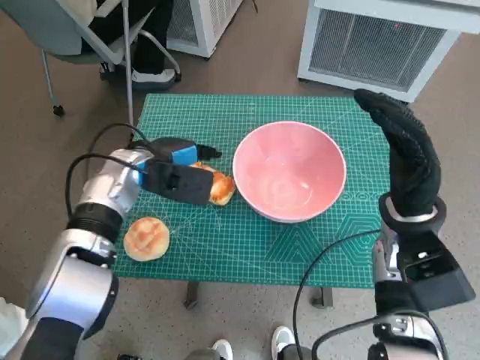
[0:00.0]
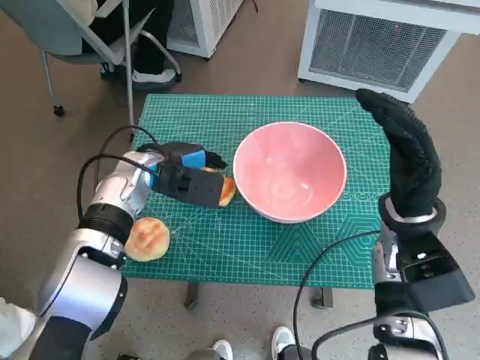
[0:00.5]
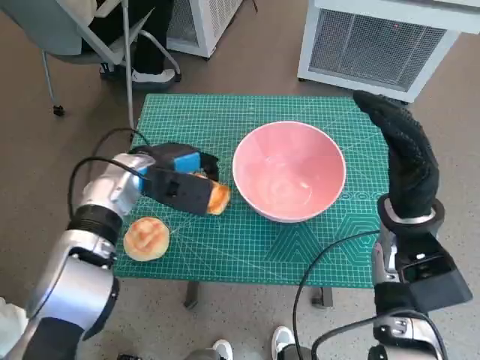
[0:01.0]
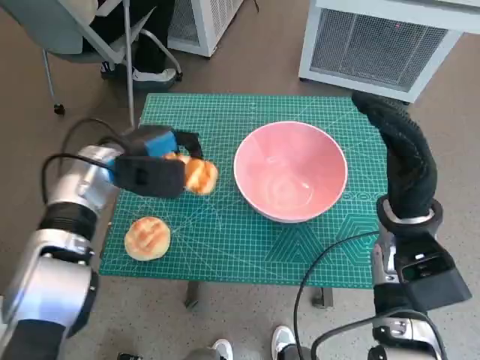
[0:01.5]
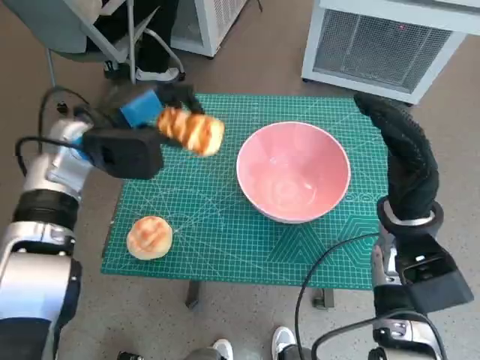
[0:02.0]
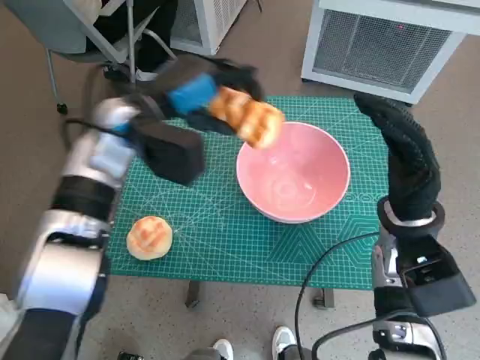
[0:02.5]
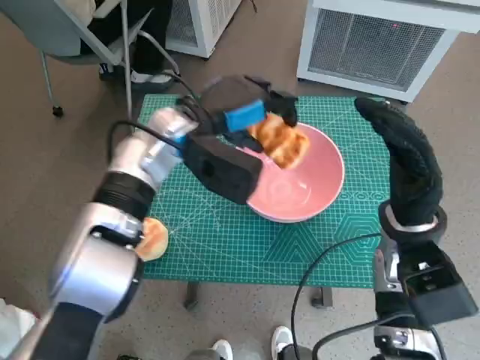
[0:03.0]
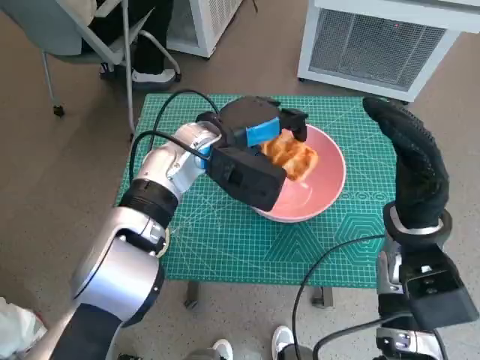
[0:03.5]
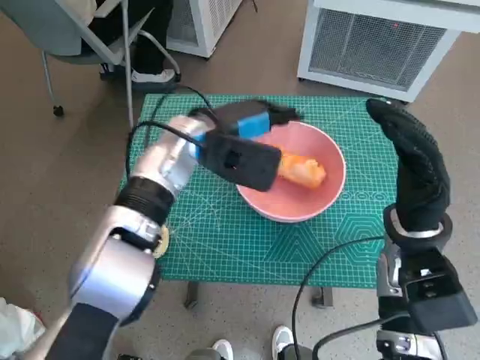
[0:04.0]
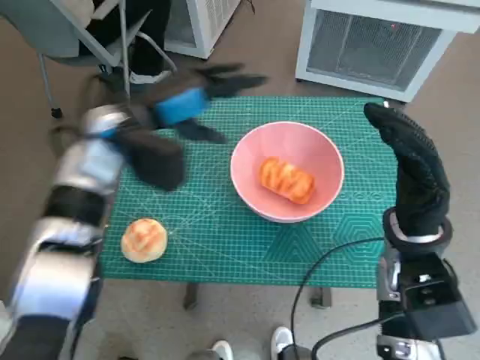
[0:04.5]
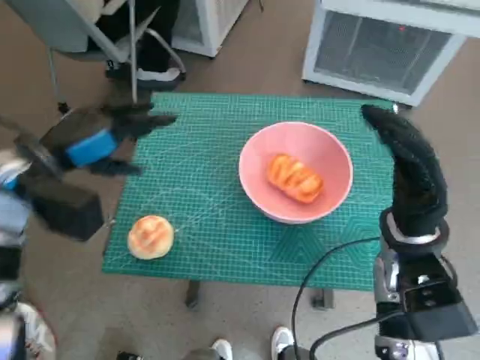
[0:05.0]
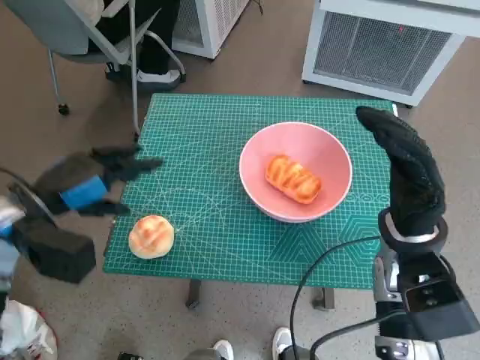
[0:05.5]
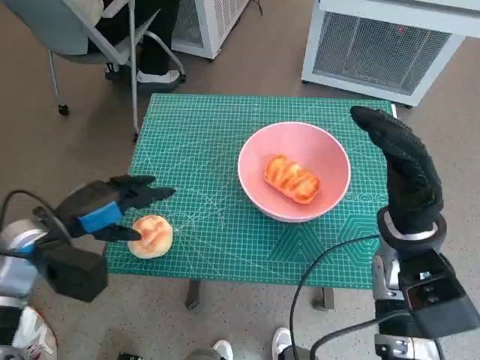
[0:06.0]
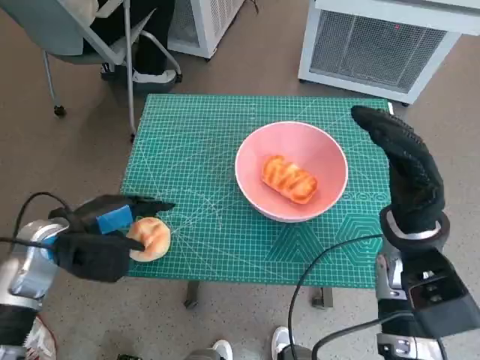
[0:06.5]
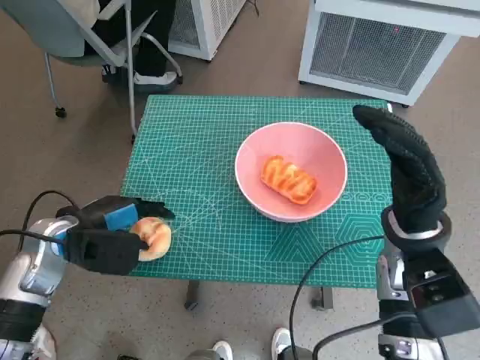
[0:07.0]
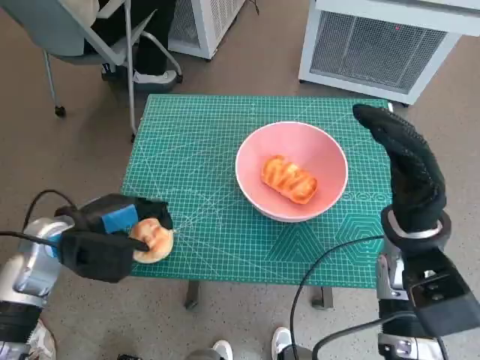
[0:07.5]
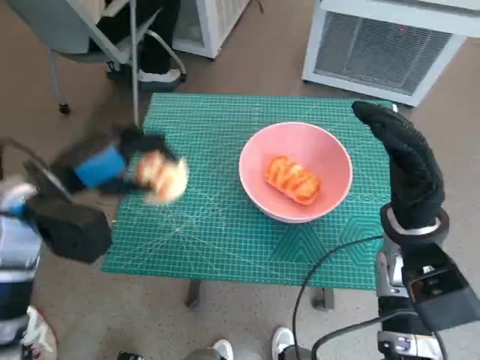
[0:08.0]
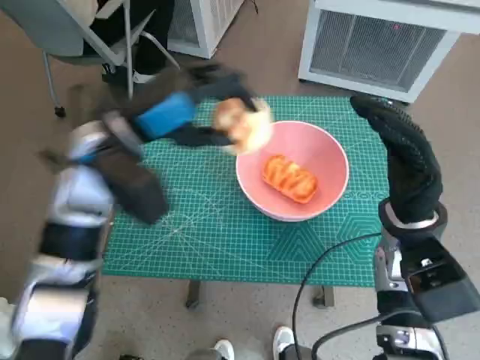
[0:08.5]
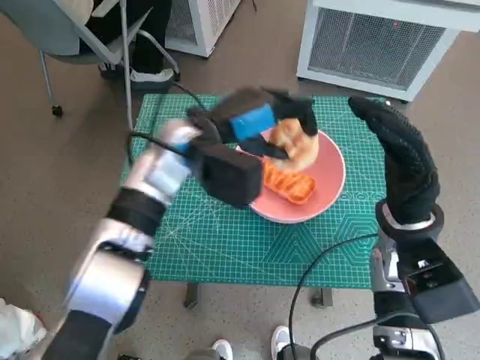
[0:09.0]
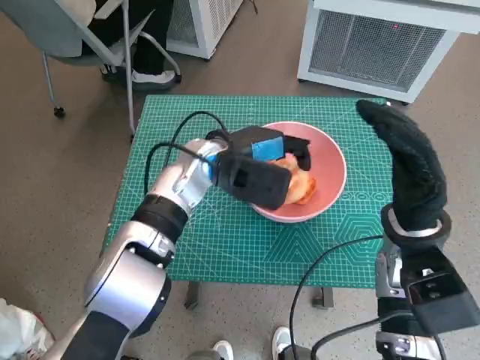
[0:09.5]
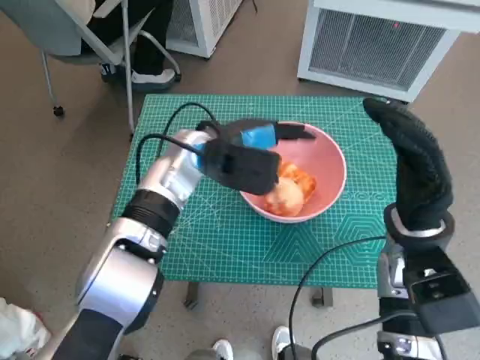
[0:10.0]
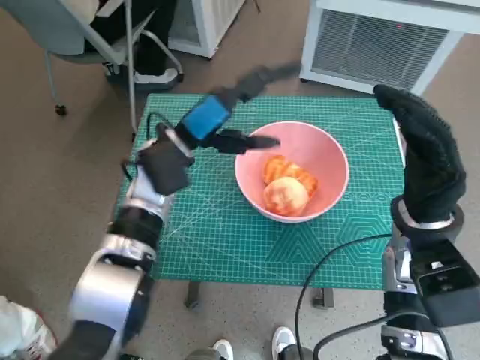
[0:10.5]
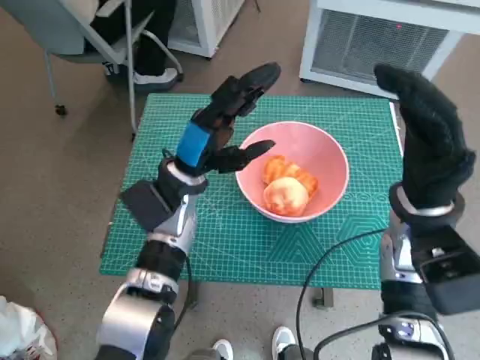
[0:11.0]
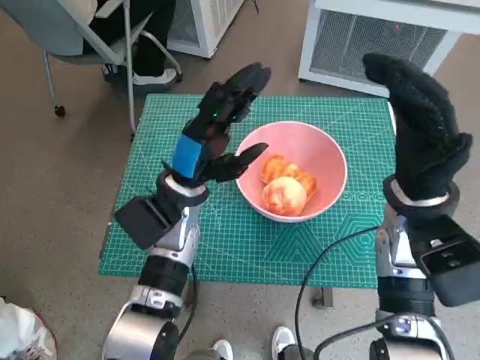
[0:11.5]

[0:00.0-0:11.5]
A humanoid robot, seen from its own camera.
Task of the whole recording: Push the bowl to the center of the table and put the bread into the bowl.
Step, 0:01.0 to 0:04.0: Place the long bread in pink bowl with left hand.
Step, 0:04.5 to 0:07.0: Grasp the round bread with left hand.
Step, 0:07.5 to 0:10.0: Place the round bread in pink bowl with left hand.
0:00.0 to 0:02.0: The left hand shifts roughly 5 cm upward.
0:02.0 to 0:04.0: The left hand is displaced to the right by roughly 15 cm.
0:04.0 to 0:06.0: The left hand heads to the left and backward, covering about 25 cm.
0:07.5 to 0:09.5: The left hand is displaced to the right and forward by about 20 cm.
0:09.5 to 0:11.5: The left hand changes place by about 5 cm.

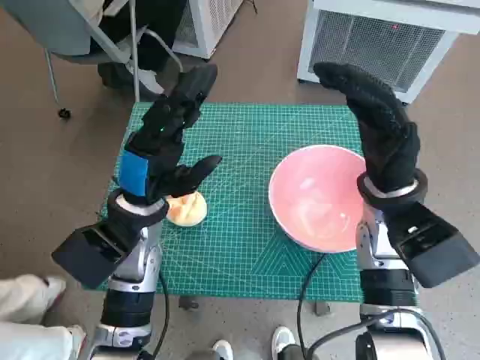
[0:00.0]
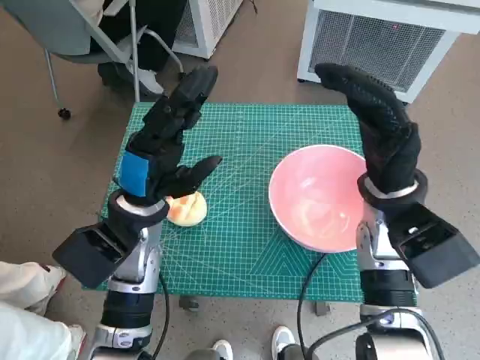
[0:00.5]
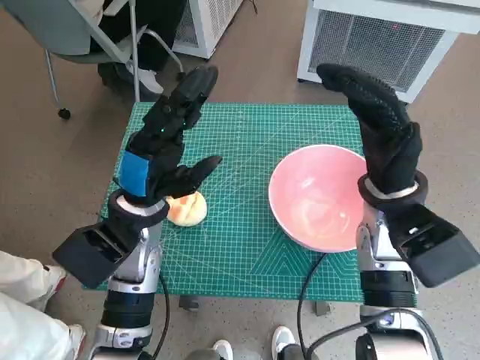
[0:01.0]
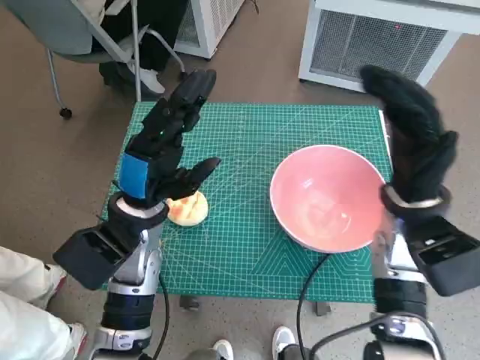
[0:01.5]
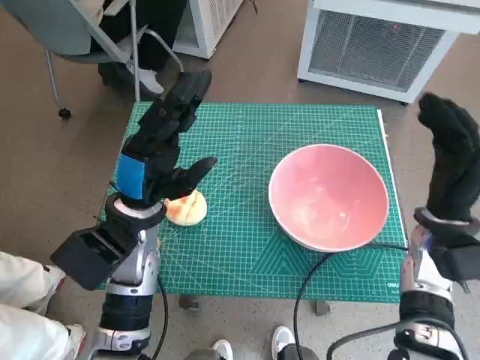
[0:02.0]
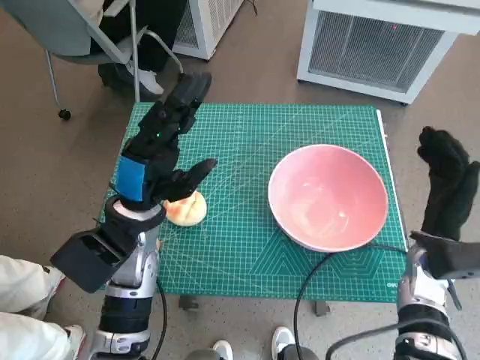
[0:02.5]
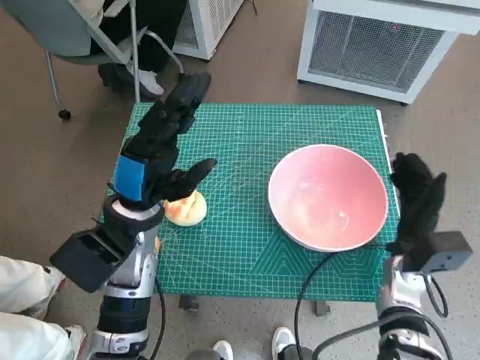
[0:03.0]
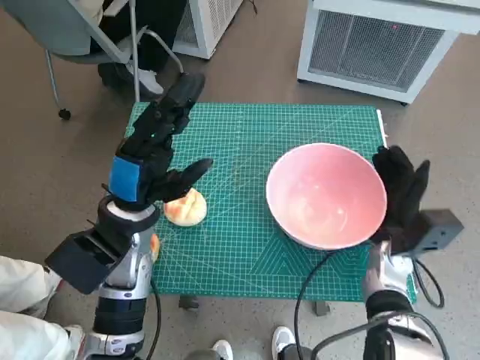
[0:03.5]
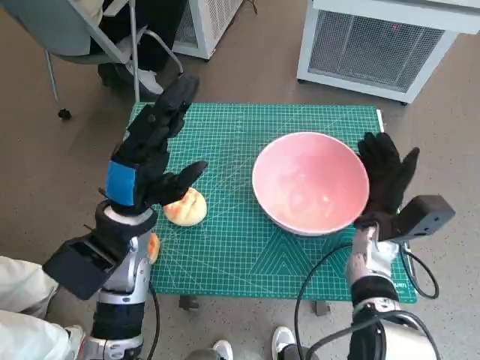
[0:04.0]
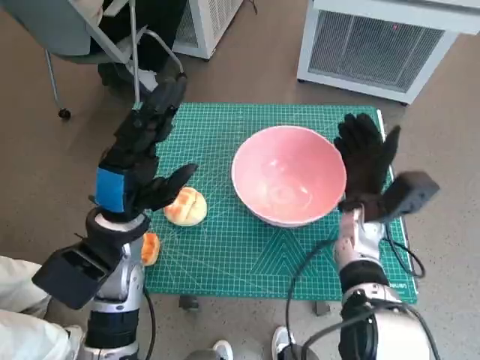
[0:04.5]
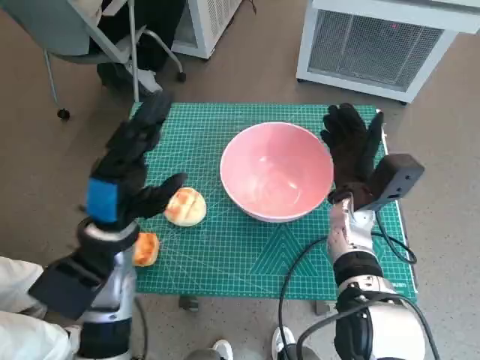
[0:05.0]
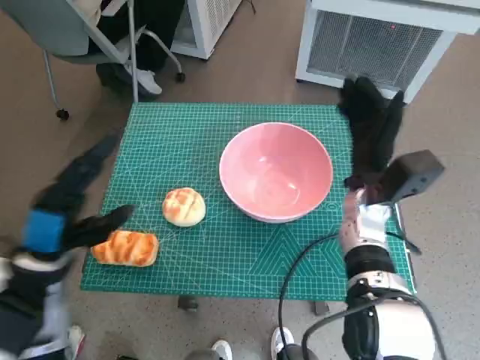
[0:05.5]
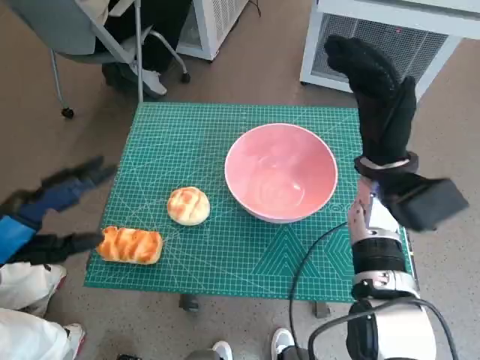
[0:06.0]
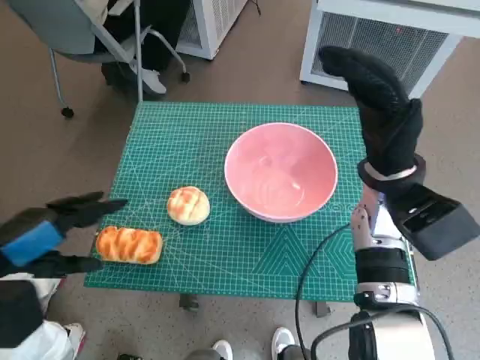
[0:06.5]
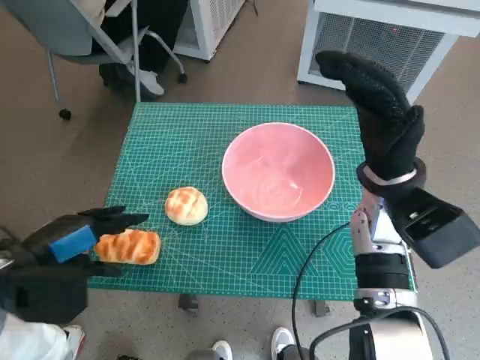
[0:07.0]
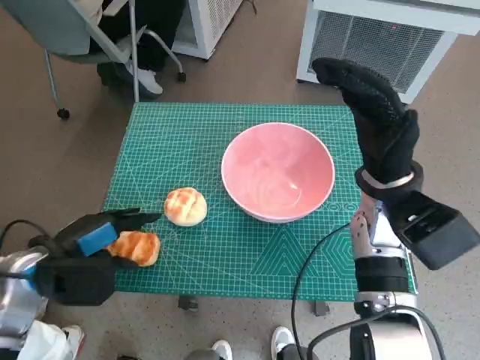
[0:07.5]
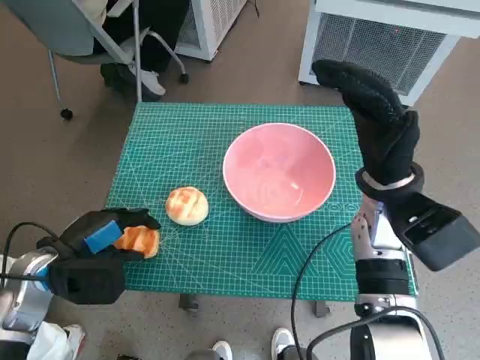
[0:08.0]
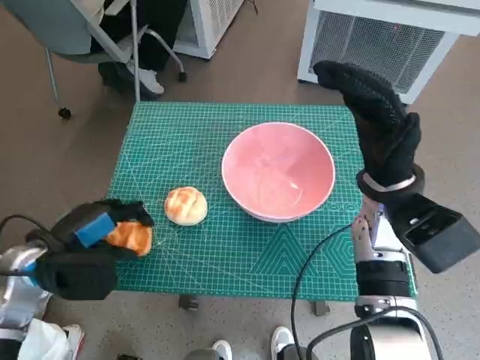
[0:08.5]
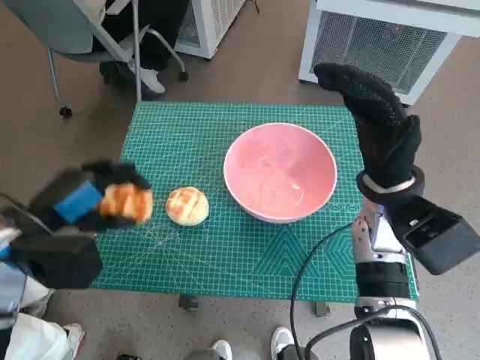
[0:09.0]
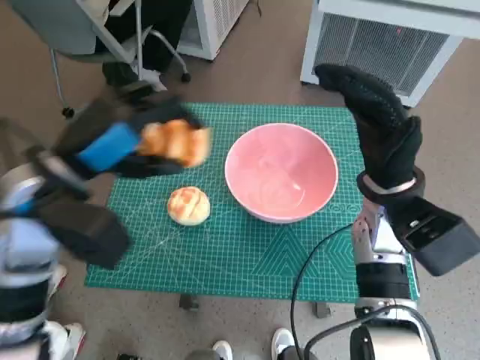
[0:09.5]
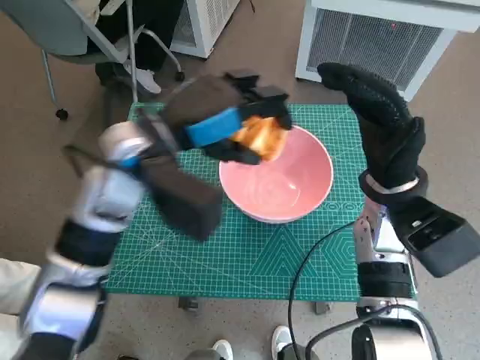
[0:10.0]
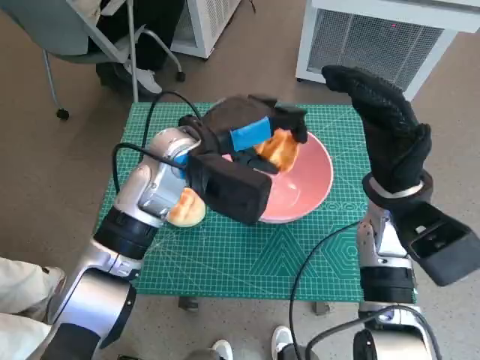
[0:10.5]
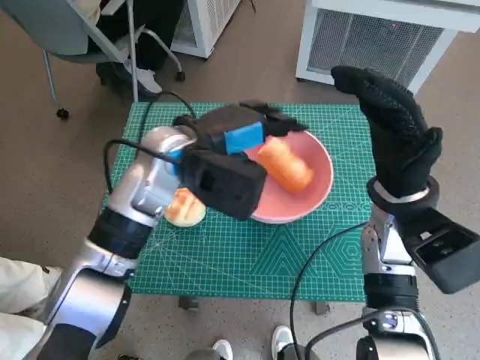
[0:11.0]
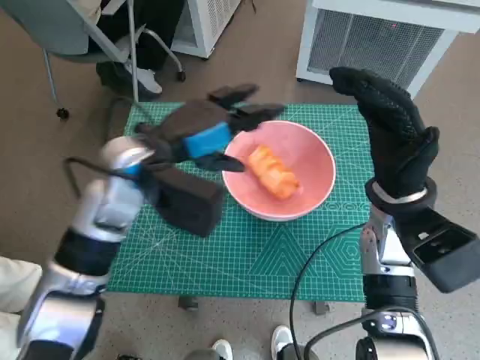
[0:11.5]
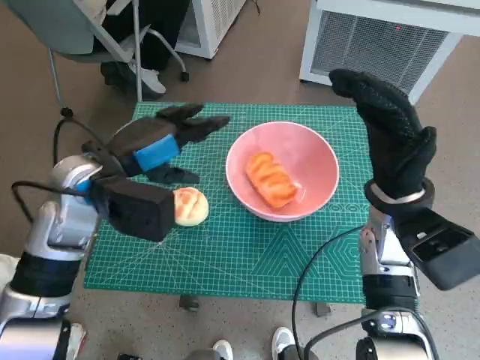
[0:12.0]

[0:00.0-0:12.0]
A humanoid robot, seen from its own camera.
Task of the whole recording: Push the bowl to the center of the table and put the bread into the bowl.
Step, 0:00.0 to 0:05.0: Move the pink bowl to the center of table with right hand.
Step, 0:05.5 to 0:08.0: Grasp the long bread with left hand.
Step, 0:08.5 to 0:11.0: Place the long bread in pink bowl with left hand.
0:02.0 to 0:04.0: The right hand moves downward and to the left, some 10 cm.
0:04.0 to 0:06.0: The left hand is displaced to the left and backward by roughly 15 cm. Meanwhile the right hand moves upward, approximately 10 cm.
0:06.0 to 0:08.0: The left hand moves downward, about 10 cm.
0:08.0 to 0:10.0: The left hand moves to the right, upward and forward, approximately 25 cm.
0:10.0 to 0:12.0: The left hand travels to the left by approximately 5 cm.

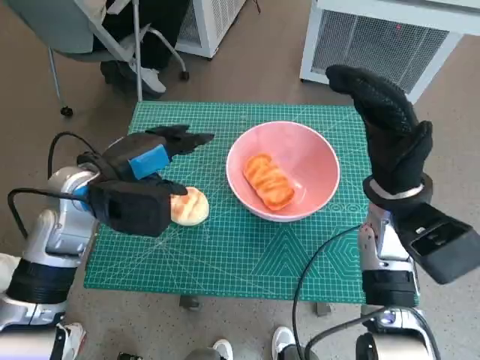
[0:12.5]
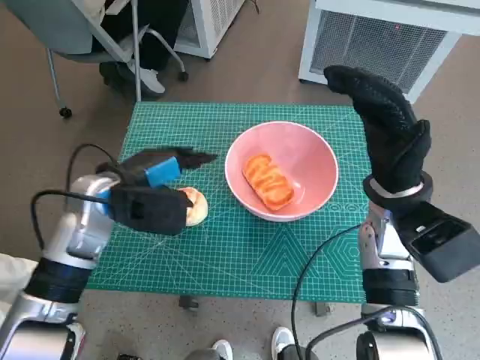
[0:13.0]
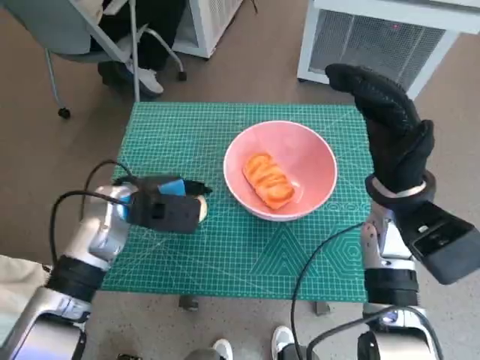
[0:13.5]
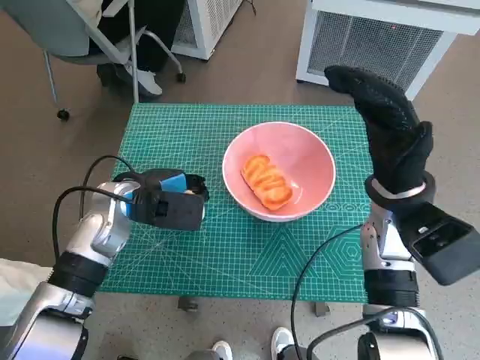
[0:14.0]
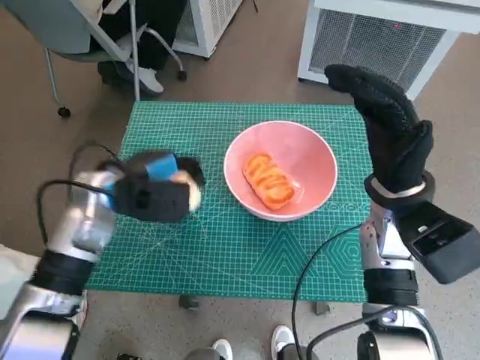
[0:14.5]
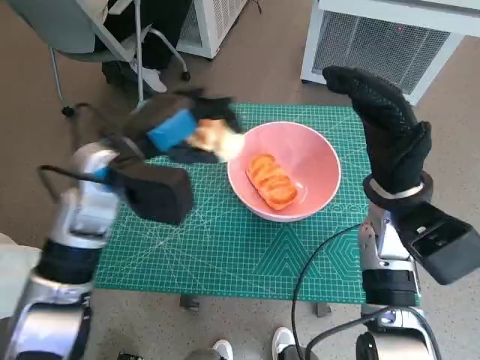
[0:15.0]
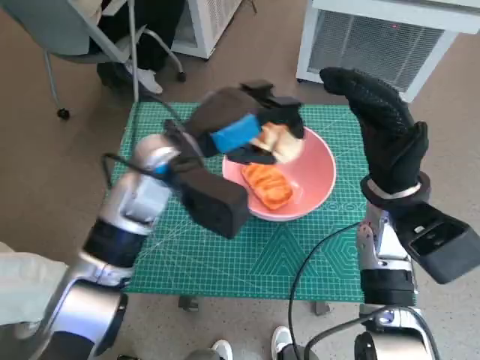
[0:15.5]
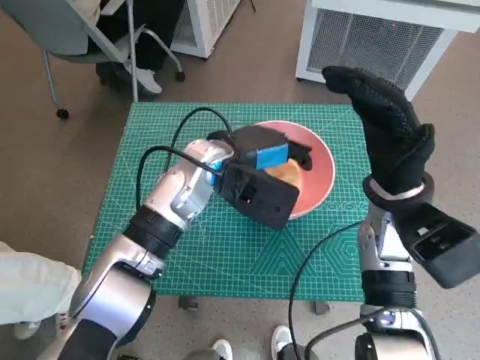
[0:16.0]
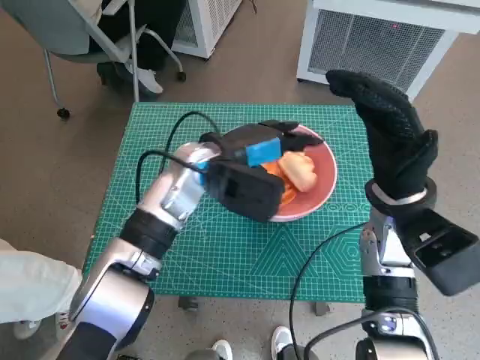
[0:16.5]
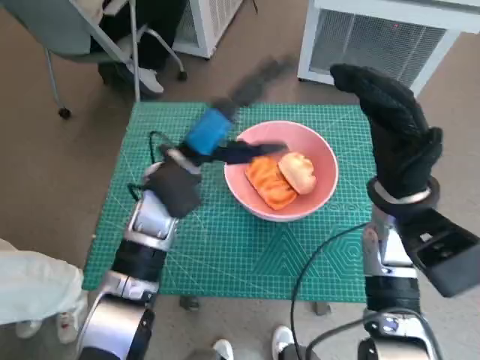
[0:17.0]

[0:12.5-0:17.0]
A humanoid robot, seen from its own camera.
Task of the whole recording: Push the bowl to the center of the table and put the bread into the bowl.
Step, 0:12.5 to 0:14.0: Grasp the round bread with left hand.
Step, 0:14.5 to 0:16.5: Place the round bread in pink bowl with left hand.
0:14.5 to 0:17.0: The left hand moves to the right, roughly 10 cm.
